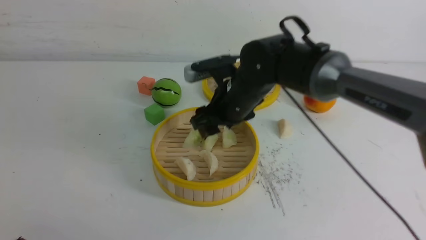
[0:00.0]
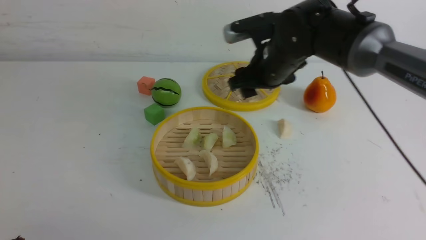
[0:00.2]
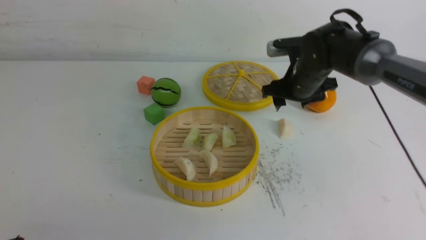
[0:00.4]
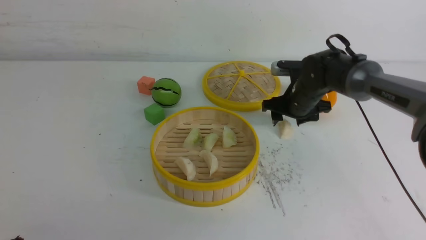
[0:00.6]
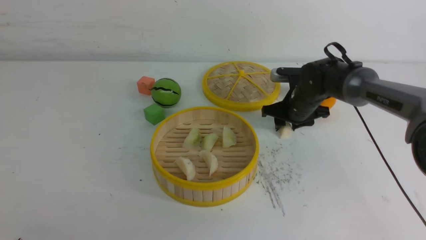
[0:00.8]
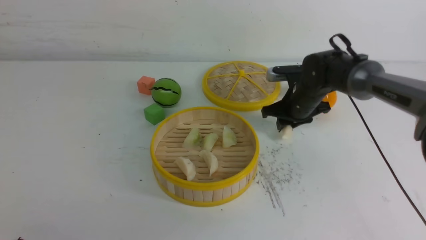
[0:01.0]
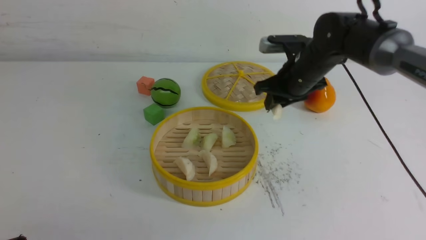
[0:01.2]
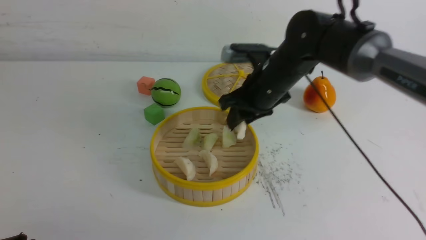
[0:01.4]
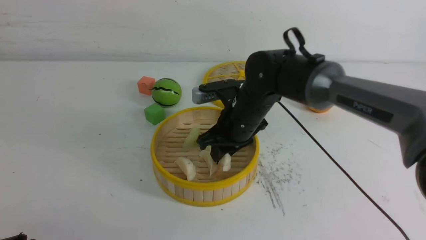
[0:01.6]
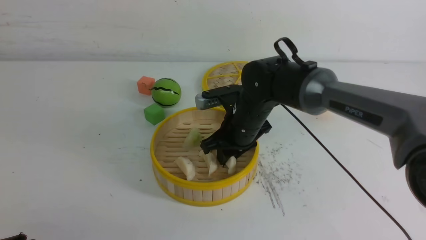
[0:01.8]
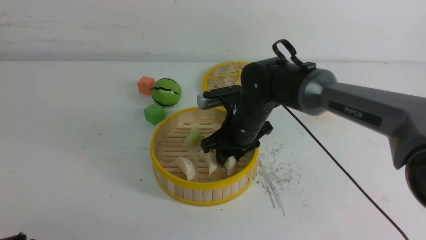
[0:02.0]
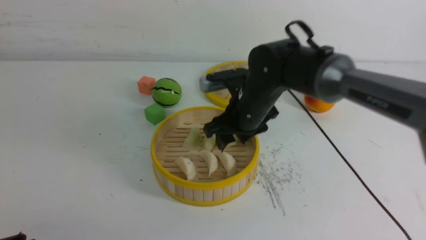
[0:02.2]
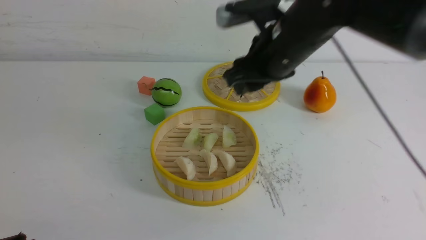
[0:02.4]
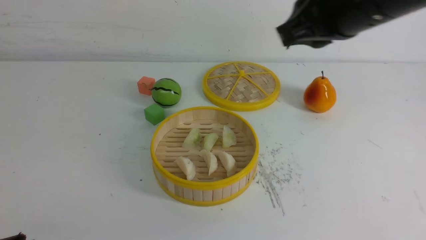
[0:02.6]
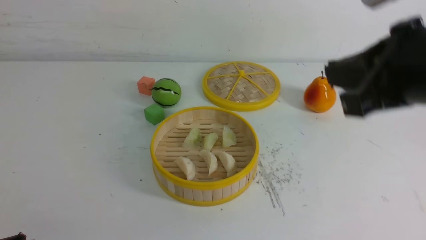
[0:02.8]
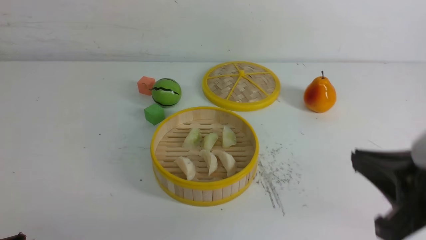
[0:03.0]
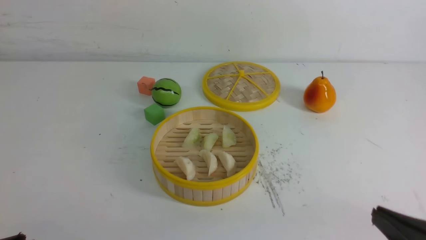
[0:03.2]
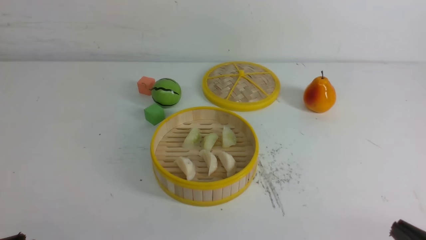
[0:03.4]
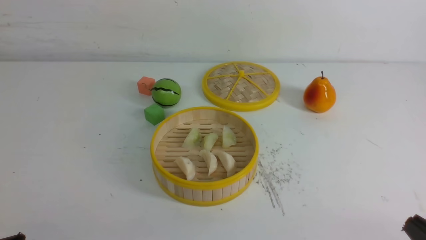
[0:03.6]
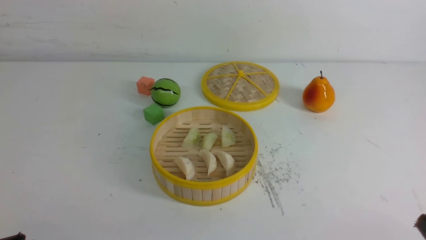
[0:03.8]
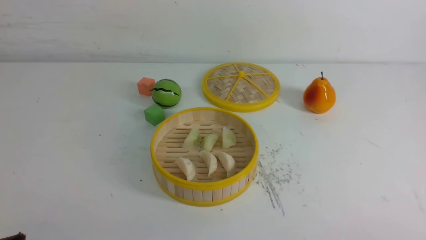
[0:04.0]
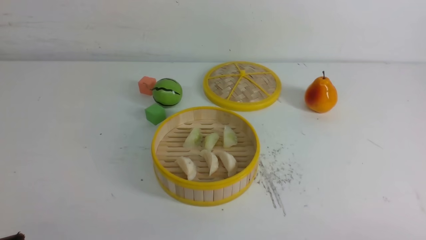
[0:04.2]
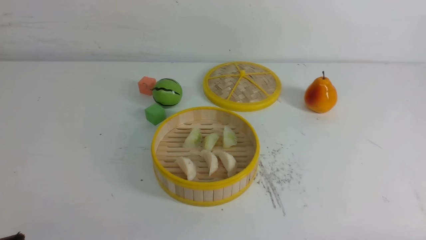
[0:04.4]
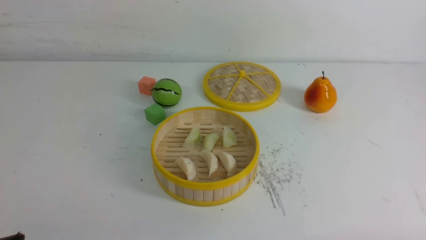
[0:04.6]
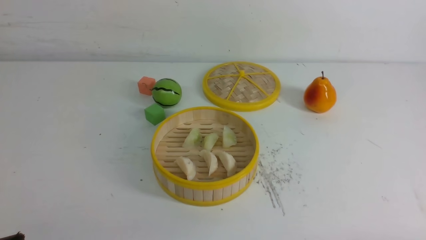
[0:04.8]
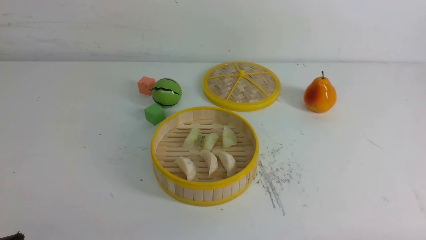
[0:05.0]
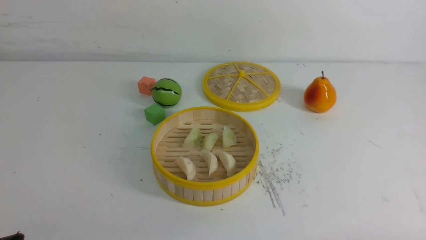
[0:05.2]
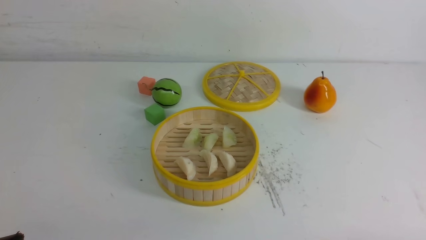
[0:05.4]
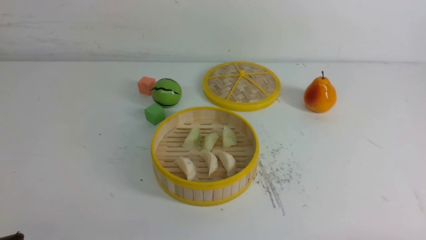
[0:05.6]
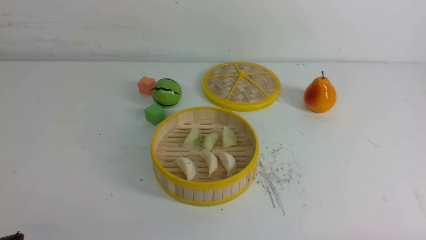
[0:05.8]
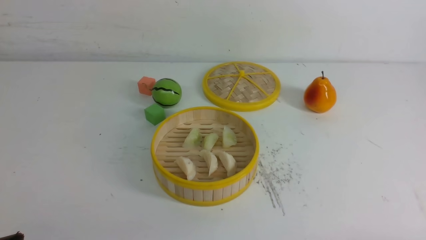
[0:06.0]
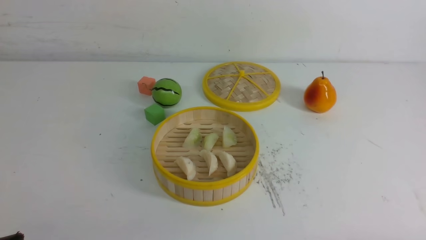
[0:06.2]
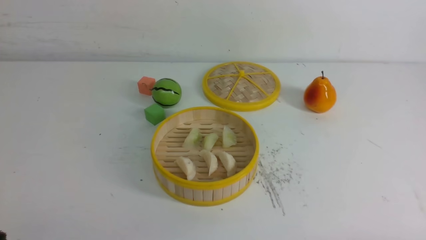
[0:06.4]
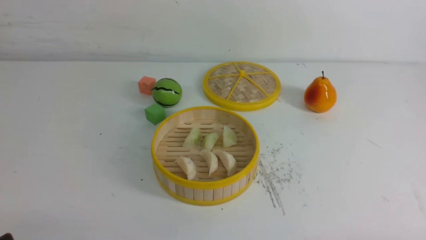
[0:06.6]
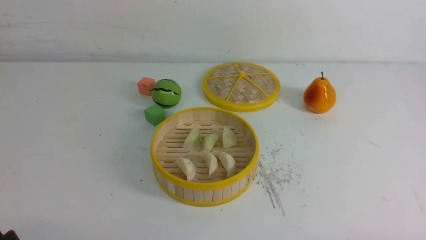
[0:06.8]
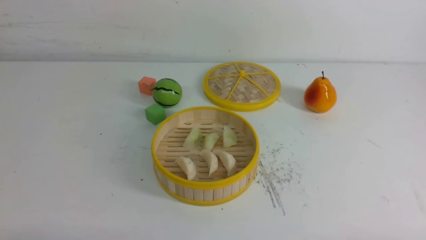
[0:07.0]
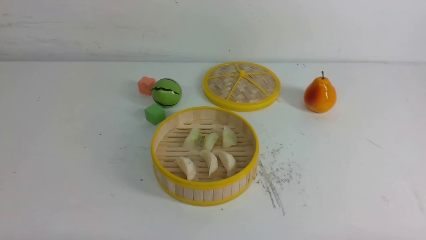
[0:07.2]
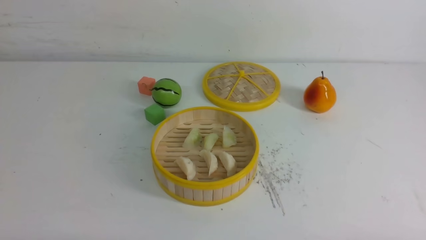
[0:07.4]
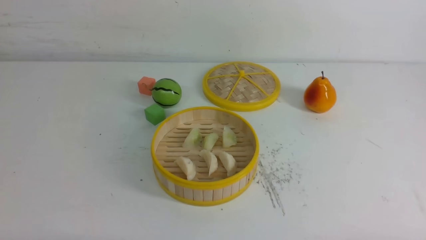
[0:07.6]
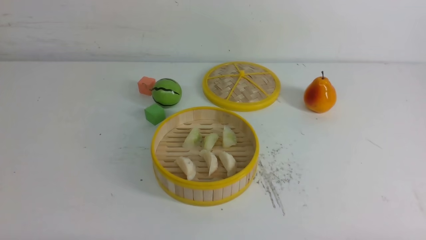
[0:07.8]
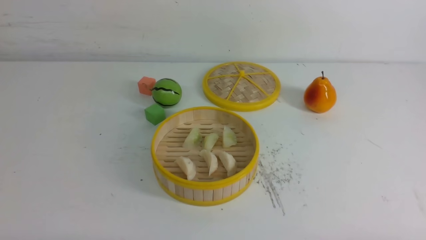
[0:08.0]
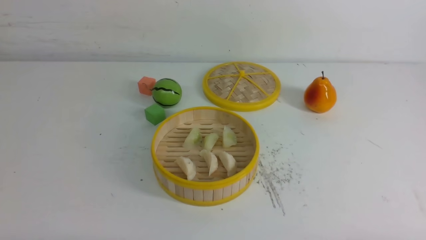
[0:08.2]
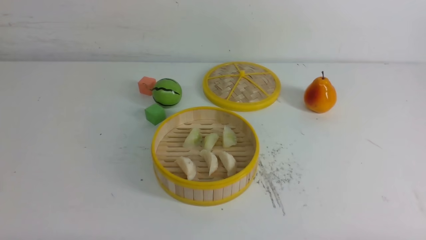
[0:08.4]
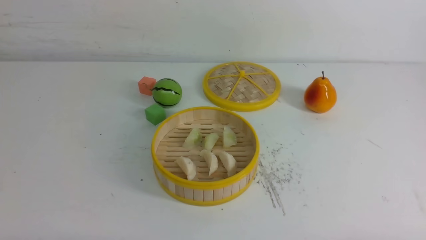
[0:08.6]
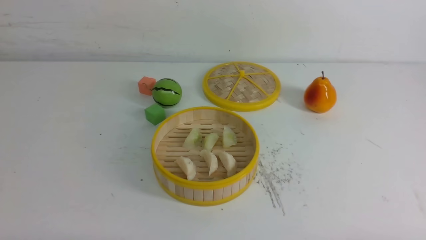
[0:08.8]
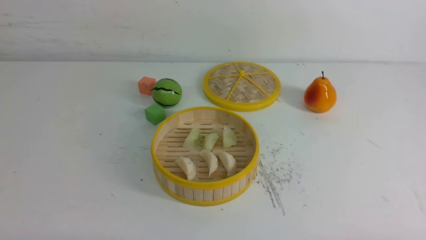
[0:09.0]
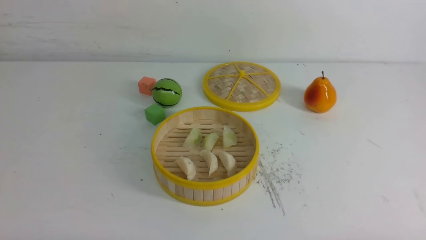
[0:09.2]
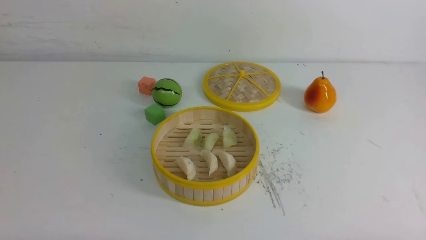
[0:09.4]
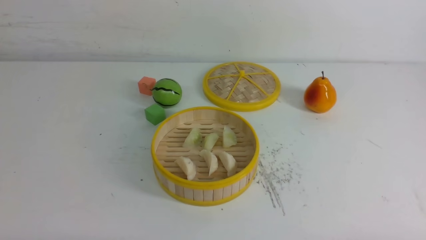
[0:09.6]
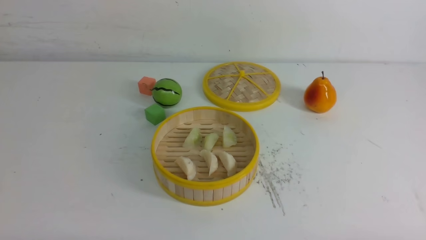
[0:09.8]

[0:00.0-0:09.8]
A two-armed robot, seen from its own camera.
Task of the whole recording: put the dumplings into the steamer on the white table.
Step, 0:00.0 to 0:00.8: use the right arm to grab a dumpling.
Step, 0:01.0 to 0:02.0: use the right arm to put the dumpling into the steamer.
0:00.0 to 0:01.4: The right gripper reaches roughly 10 cm to the right, then returns, and closes its fingers.
0:01.4 to 0:02.8: The right gripper goes roughly 30 cm backward, upward and to the right, and closes.
0:02.8 to 0:04.2: The right gripper goes roughly 25 cm downward, backward and to the right.
0:08.4 to 0:09.8: Neither gripper changes place.
